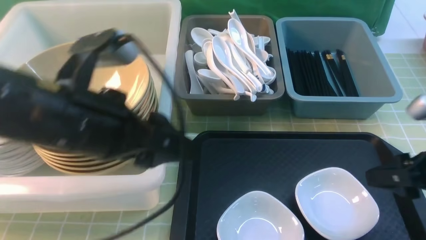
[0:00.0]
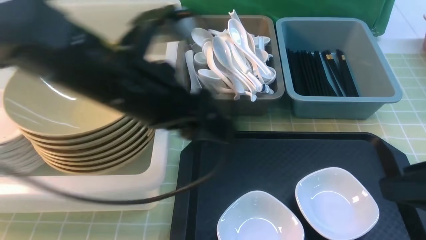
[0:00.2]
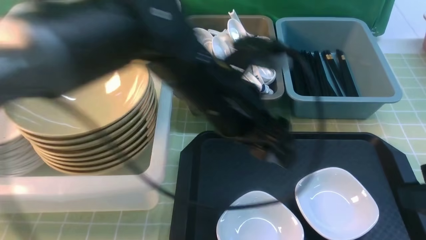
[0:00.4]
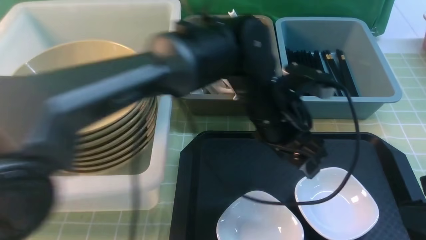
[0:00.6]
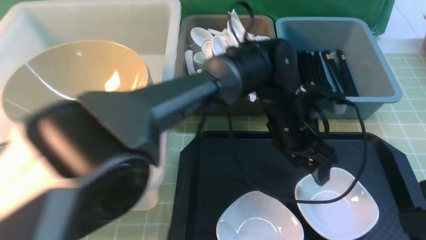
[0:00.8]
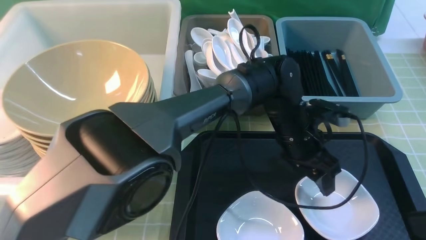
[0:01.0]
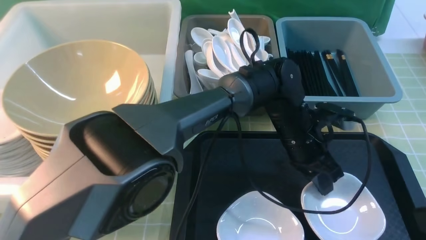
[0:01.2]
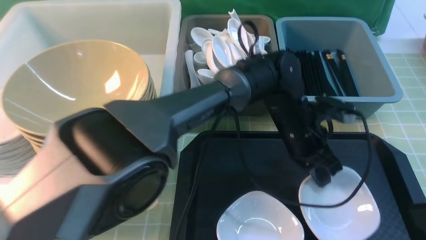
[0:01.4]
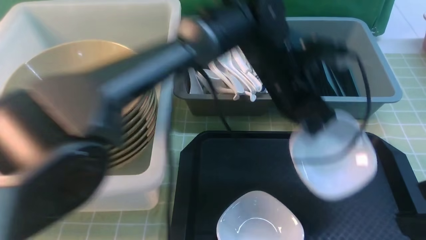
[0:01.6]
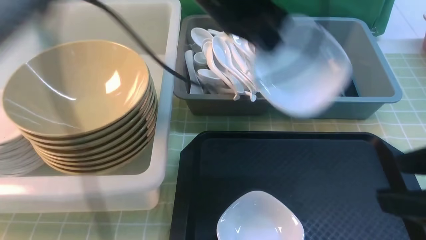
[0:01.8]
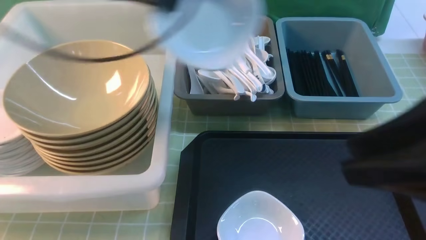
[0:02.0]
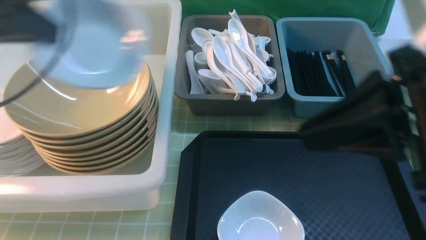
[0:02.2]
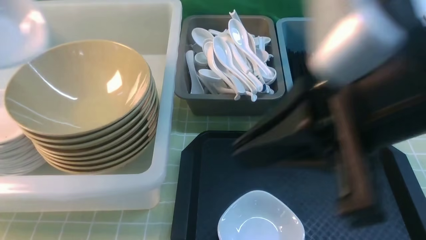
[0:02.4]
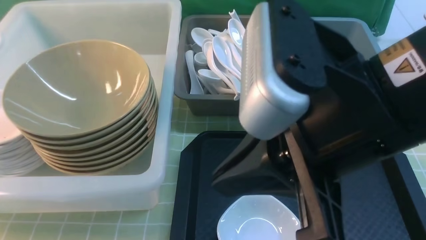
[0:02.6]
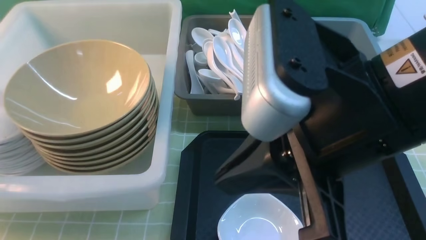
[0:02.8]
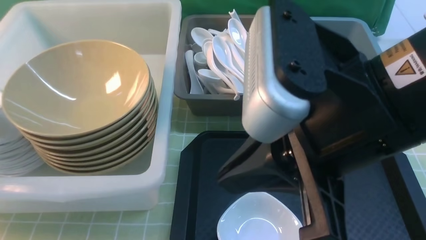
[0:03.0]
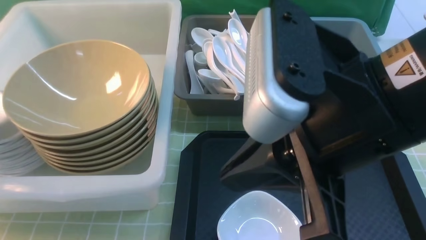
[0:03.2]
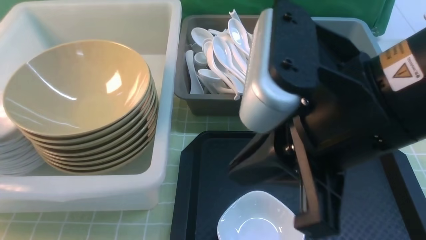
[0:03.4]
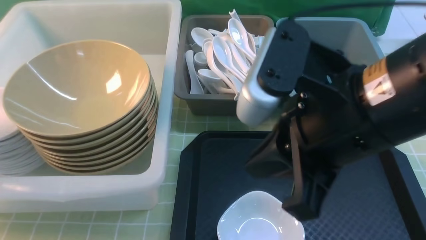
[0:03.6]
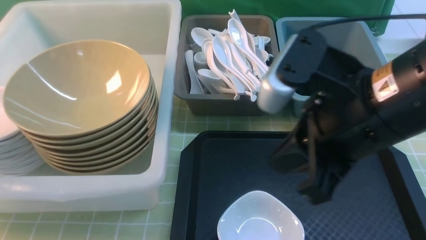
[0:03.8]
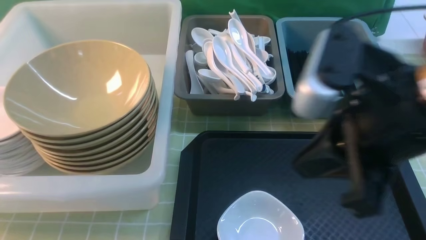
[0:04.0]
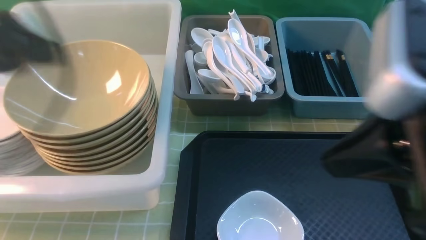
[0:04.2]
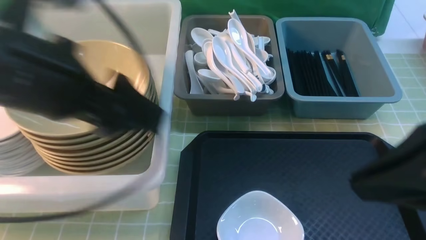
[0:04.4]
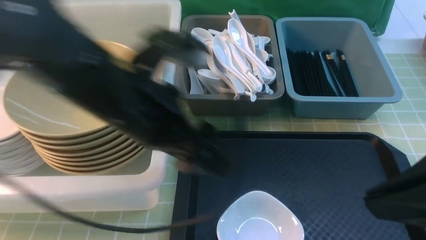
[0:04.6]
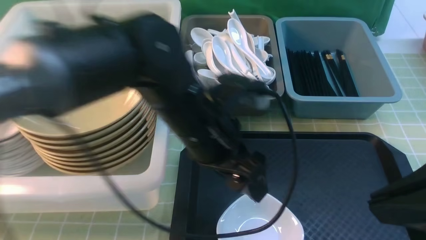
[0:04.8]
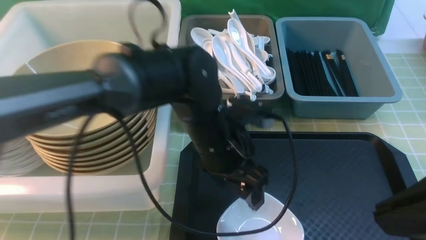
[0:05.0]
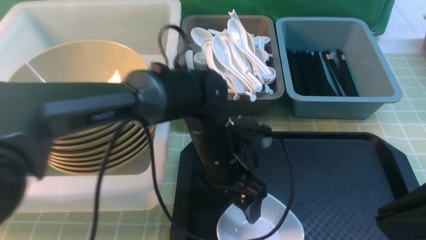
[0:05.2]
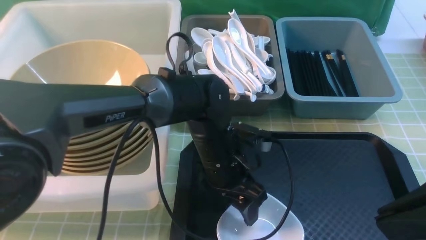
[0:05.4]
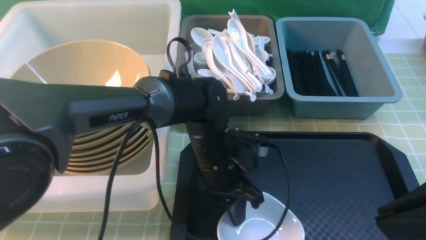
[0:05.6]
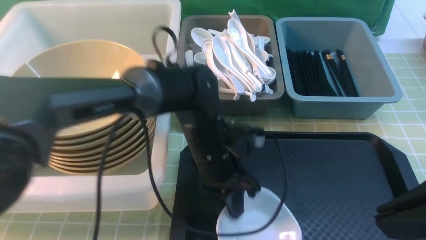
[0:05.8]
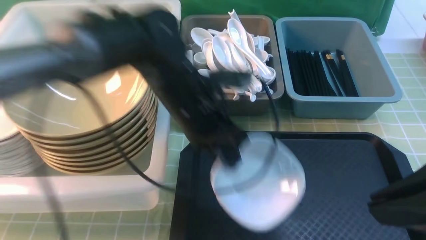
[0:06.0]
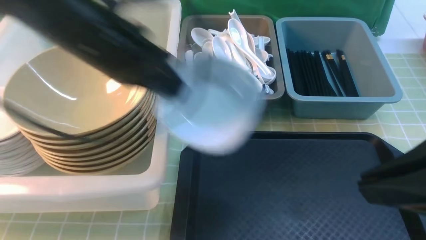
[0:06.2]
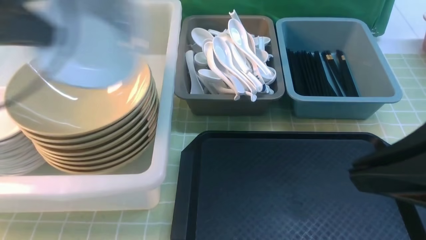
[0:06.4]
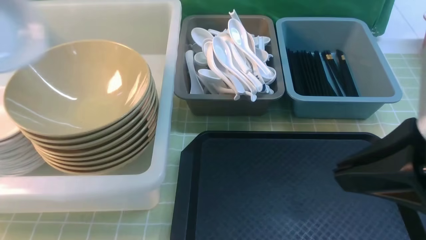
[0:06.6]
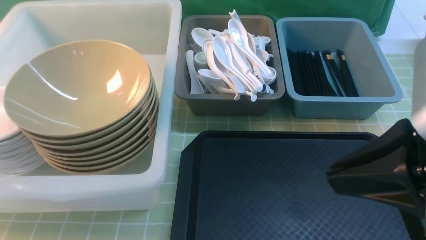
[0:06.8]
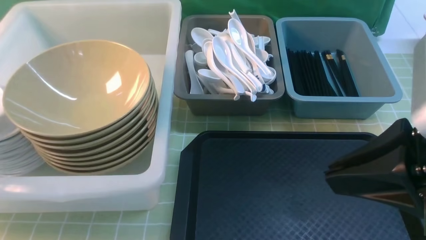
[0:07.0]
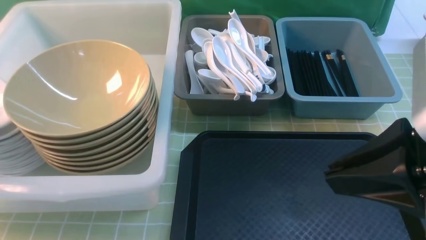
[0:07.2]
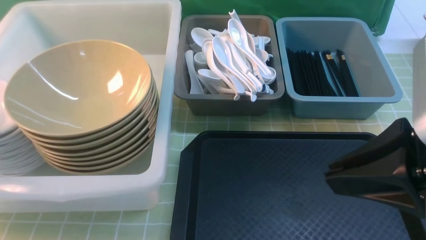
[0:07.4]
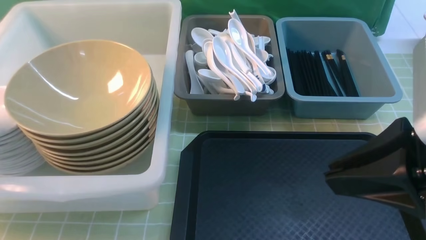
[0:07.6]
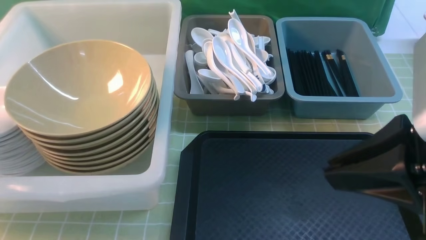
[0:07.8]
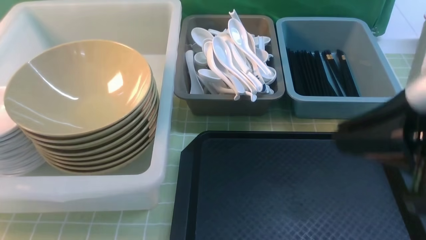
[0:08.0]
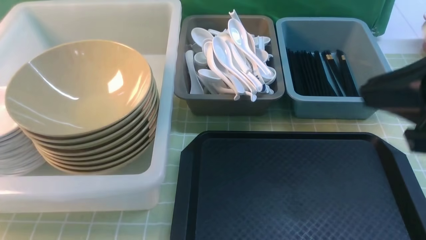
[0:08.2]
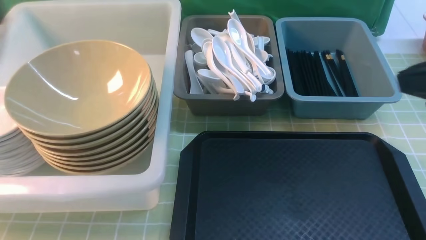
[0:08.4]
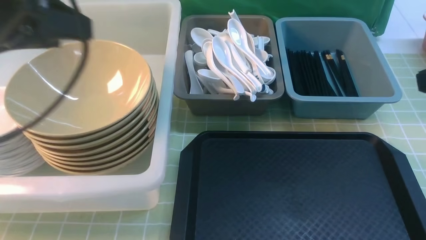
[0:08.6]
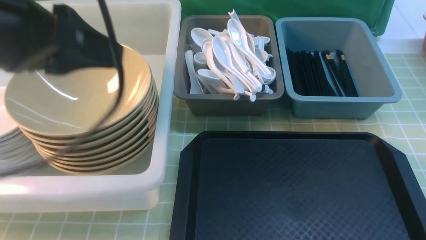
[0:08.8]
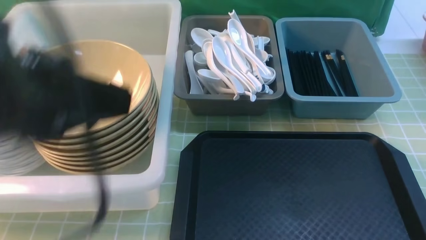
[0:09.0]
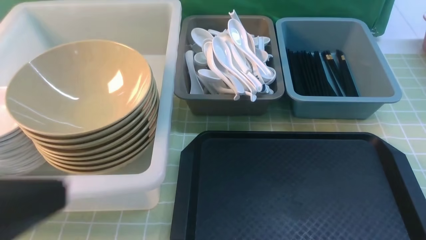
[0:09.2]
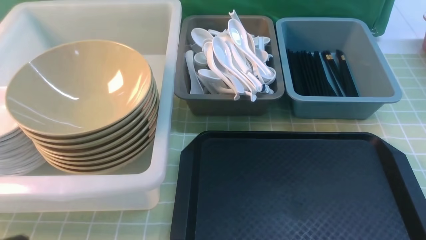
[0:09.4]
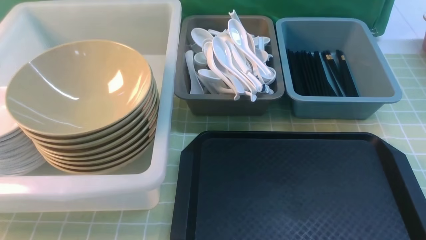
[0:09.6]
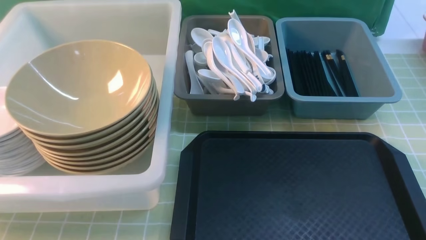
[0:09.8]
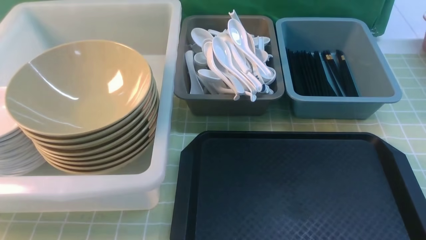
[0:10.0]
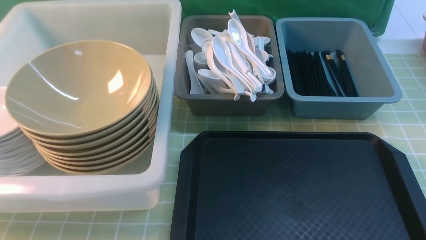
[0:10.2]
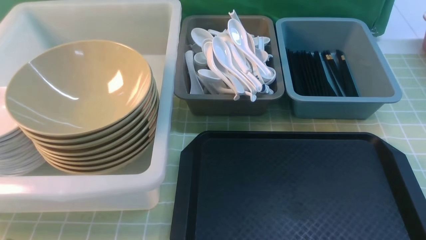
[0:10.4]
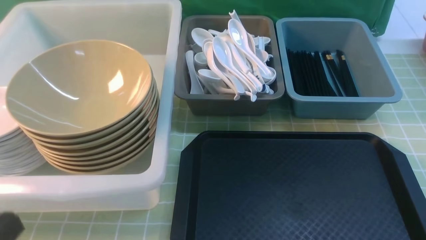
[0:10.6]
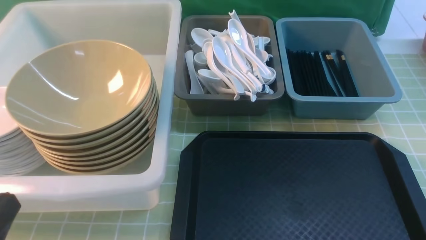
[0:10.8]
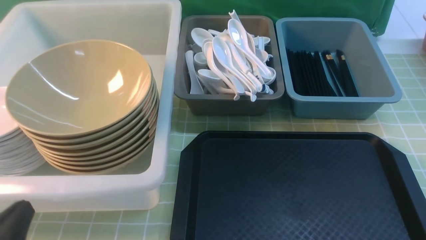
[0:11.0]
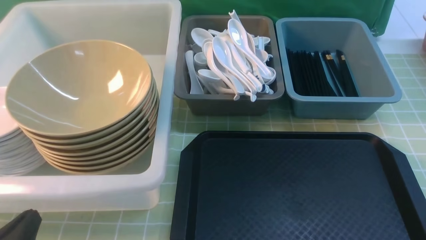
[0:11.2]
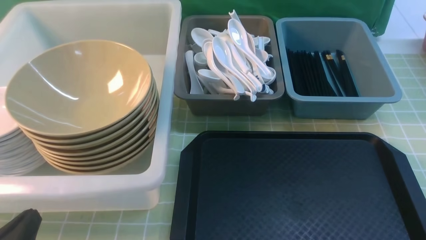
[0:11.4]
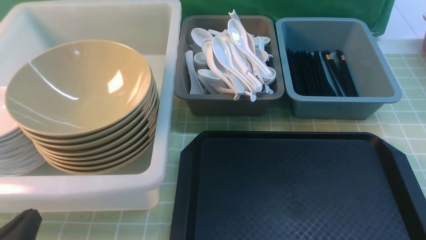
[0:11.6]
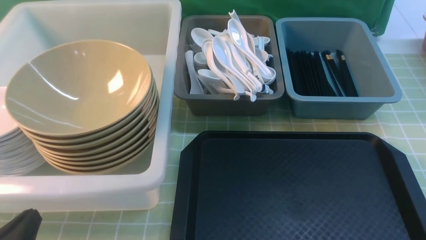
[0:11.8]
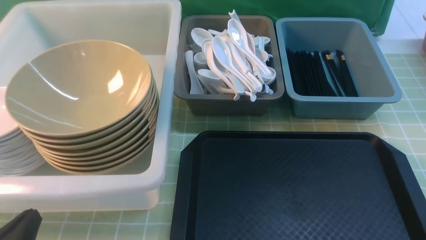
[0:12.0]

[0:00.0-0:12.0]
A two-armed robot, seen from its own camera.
Task of the whole recording: on green table put chopsticks spoon bowls plates into blue grey white boxes.
Step, 0:00.4 to 0:01.2: use the left arm to grab the plate.
Step, 0:01.4 to 0:03.8: use the left arm to put the plate into the large storage box on the left.
Step, 0:04.0 to 0:06.0: use the left arm to grab the plate.
Step, 0:06.2 to 0:08.4: use the left arm to put the plate into the large storage box on the left.
0:00.0 to 0:01.6: The right gripper moves backward and upward, roughly 10 cm, while the left gripper shifts some 25 cm to the right and forward, and closes.
0:01.6 to 0:03.0: The right gripper heads to the left, covering about 15 cm, and closes. Meanwhile the left gripper travels to the left by some 50 cm.
0:03.0 to 0:04.4: The right gripper goes roughly 10 cm to the right. Meanwhile the left gripper travels to the right by roughly 30 cm, and opens its fingers.
0:04.4 to 0:06.0: The left gripper travels downward, forward and to the right by roughly 15 cm, and closes up.
0:06.0 to 0:07.6: The left gripper shifts roughly 35 cm to the left, and opens its fingers.
0:07.6 to 0:09.0: The right gripper moves to the right and backward, roughly 15 cm, while the left gripper shifts about 30 cm to the right, backward and upward, and closes up.
0:09.0 to 0:10.4: The left gripper heads downward, backward and to the left, covering roughly 15 cm.
0:10.4 to 0:12.0: The left gripper heads downward and forward, covering roughly 15 cm.

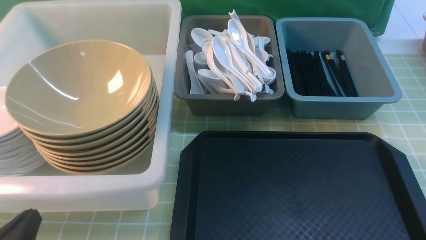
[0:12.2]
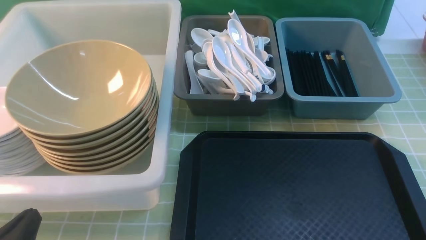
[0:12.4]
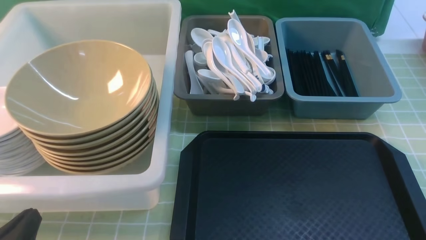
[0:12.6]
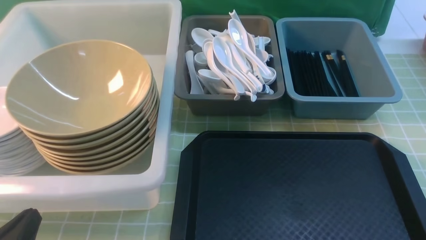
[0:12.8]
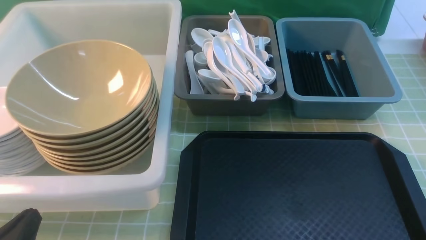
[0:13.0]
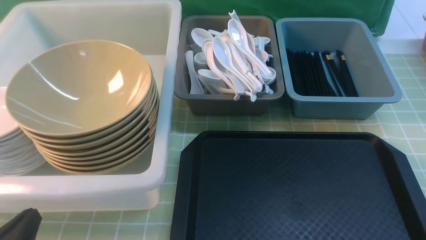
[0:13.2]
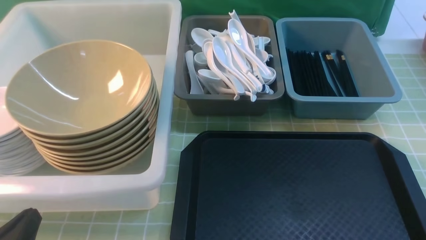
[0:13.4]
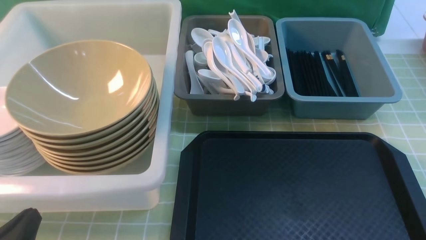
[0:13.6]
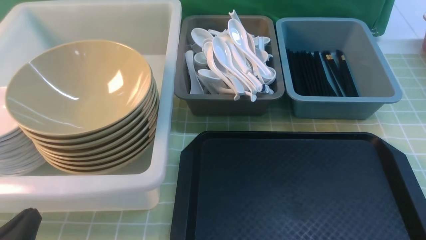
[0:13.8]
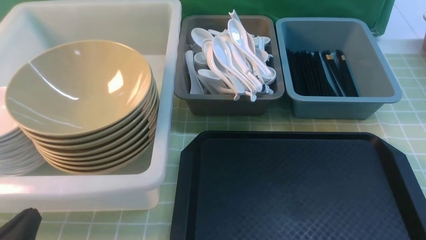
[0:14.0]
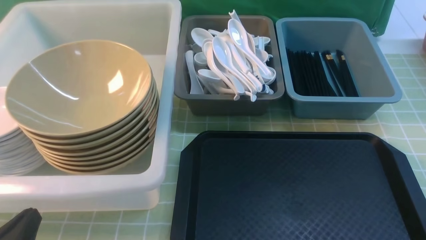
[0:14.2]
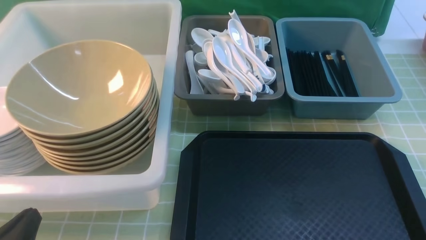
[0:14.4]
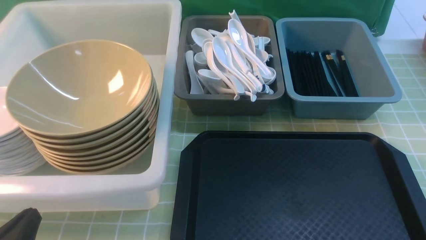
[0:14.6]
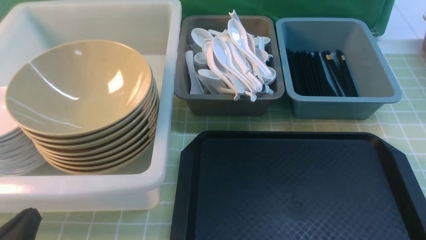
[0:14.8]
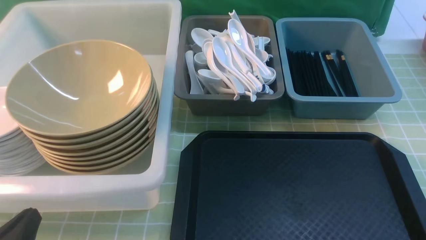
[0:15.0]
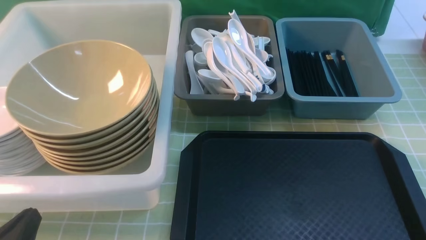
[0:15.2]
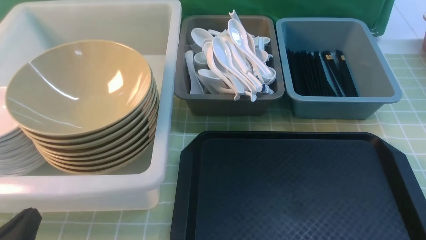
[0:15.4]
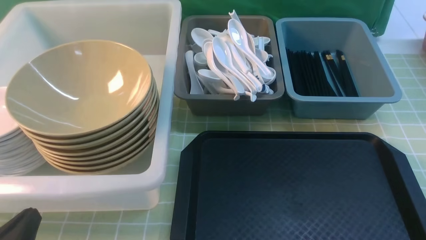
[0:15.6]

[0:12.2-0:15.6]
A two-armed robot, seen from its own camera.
Task of the whole recording: on green table put chopsticks spoon bowls plates into blue grey white boxes.
0:13.8 to 0:15.6: Both grippers stay put.
